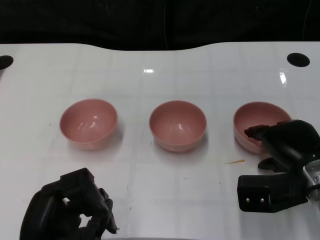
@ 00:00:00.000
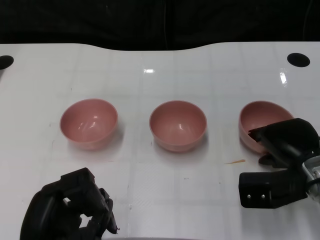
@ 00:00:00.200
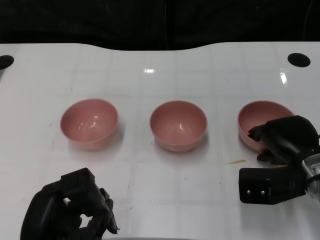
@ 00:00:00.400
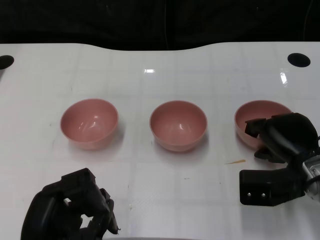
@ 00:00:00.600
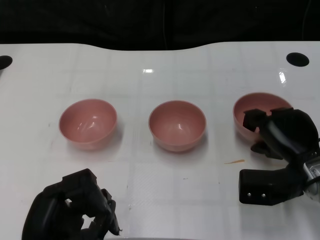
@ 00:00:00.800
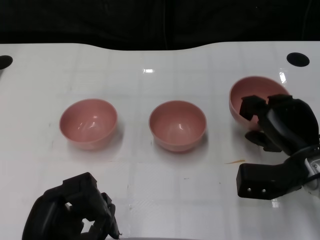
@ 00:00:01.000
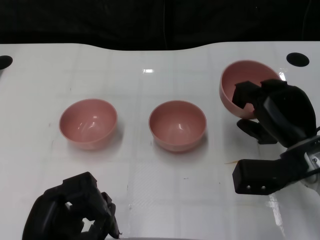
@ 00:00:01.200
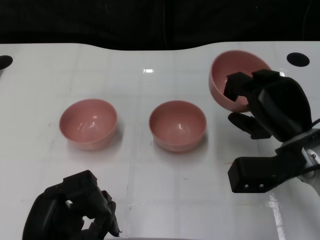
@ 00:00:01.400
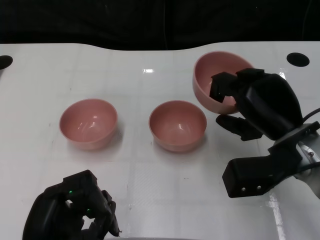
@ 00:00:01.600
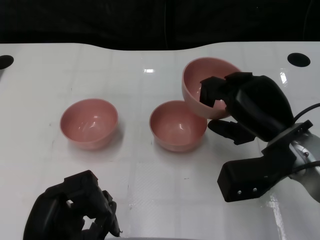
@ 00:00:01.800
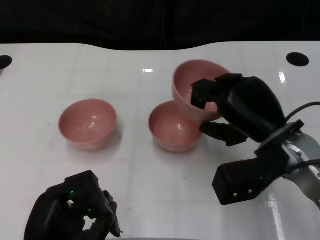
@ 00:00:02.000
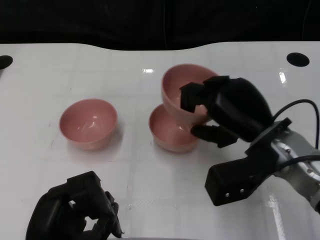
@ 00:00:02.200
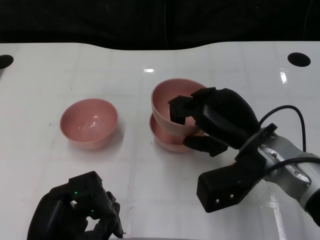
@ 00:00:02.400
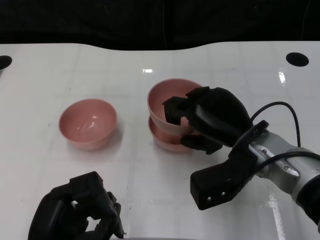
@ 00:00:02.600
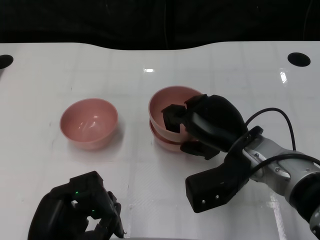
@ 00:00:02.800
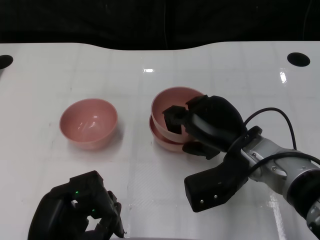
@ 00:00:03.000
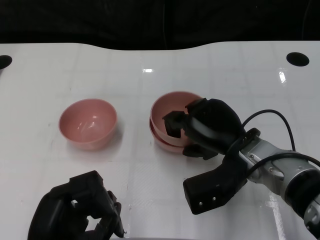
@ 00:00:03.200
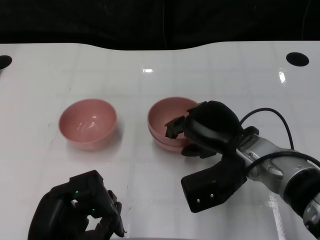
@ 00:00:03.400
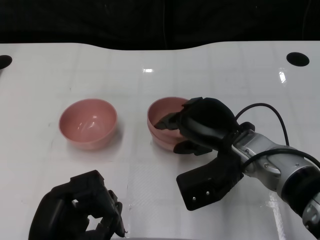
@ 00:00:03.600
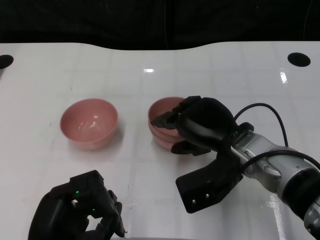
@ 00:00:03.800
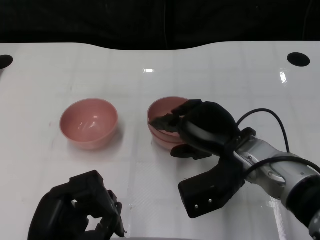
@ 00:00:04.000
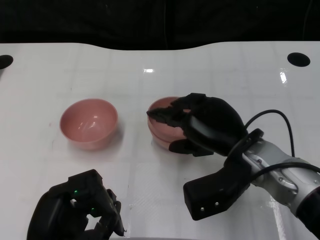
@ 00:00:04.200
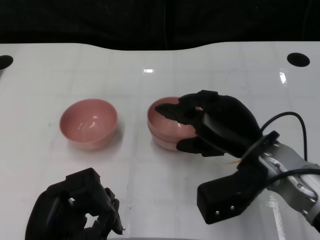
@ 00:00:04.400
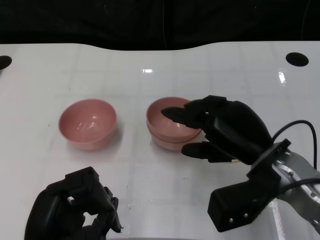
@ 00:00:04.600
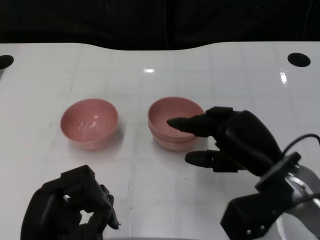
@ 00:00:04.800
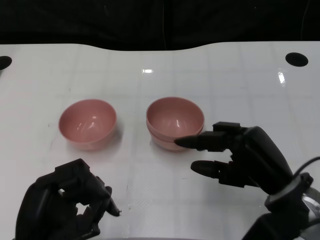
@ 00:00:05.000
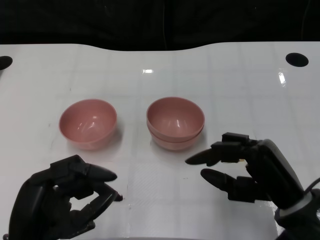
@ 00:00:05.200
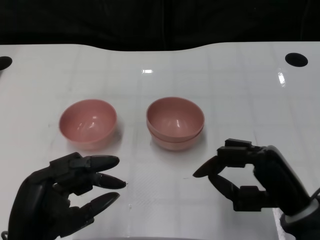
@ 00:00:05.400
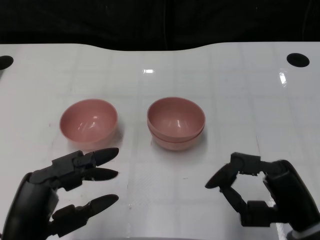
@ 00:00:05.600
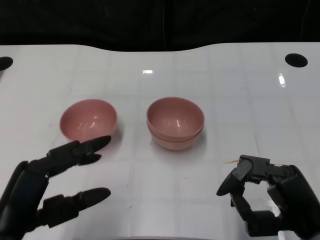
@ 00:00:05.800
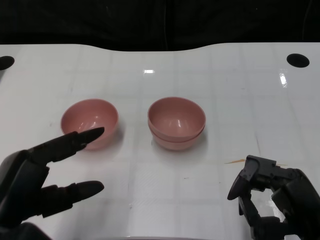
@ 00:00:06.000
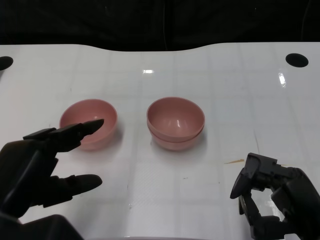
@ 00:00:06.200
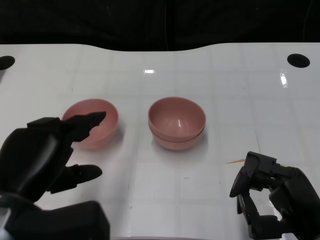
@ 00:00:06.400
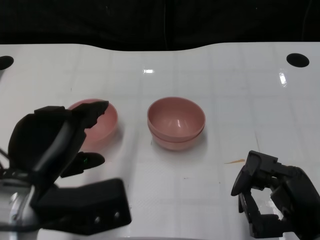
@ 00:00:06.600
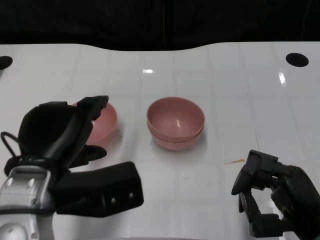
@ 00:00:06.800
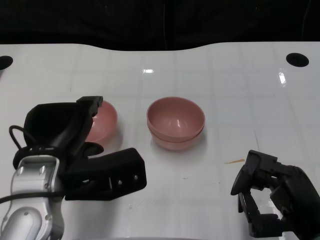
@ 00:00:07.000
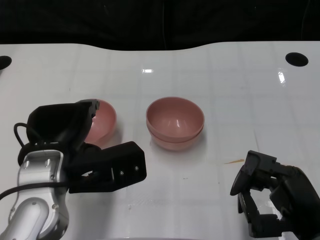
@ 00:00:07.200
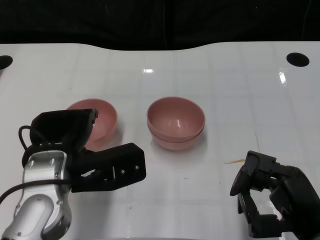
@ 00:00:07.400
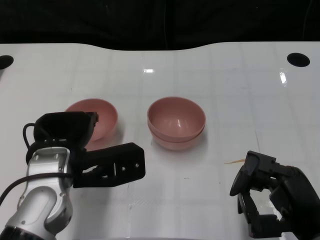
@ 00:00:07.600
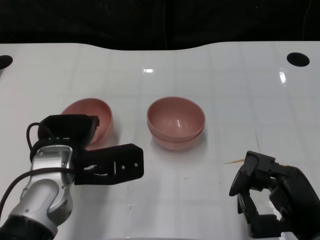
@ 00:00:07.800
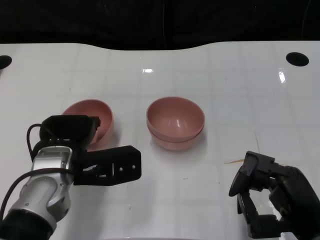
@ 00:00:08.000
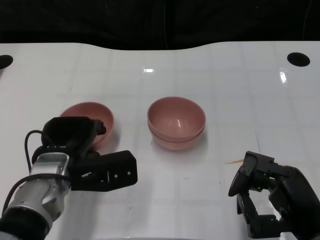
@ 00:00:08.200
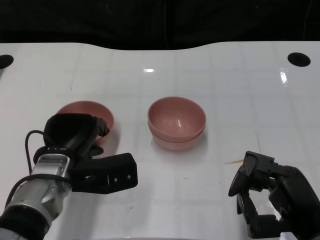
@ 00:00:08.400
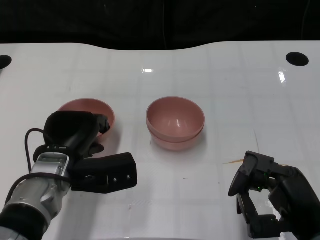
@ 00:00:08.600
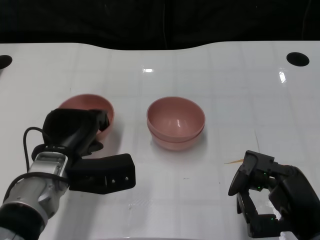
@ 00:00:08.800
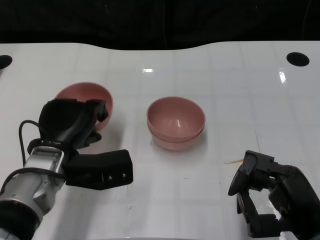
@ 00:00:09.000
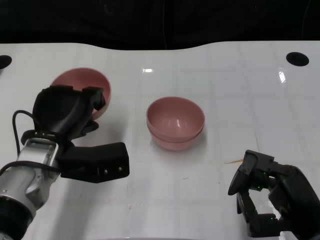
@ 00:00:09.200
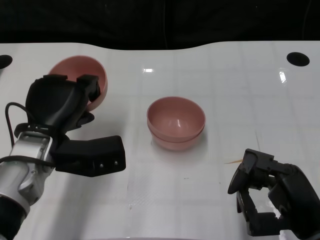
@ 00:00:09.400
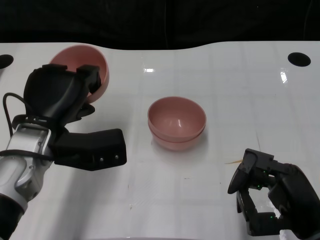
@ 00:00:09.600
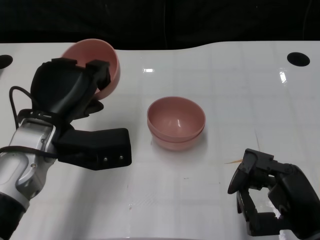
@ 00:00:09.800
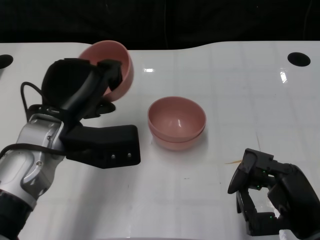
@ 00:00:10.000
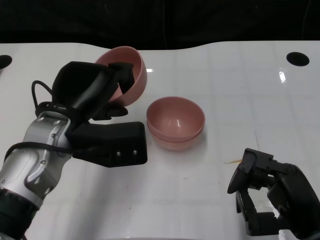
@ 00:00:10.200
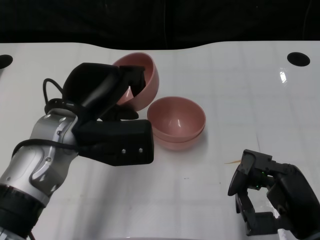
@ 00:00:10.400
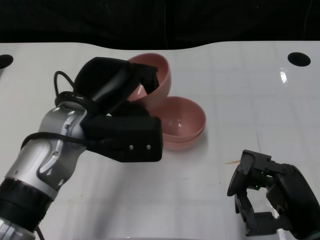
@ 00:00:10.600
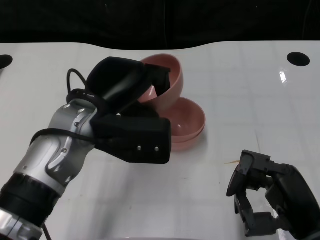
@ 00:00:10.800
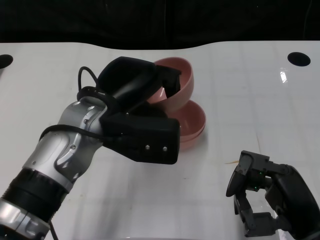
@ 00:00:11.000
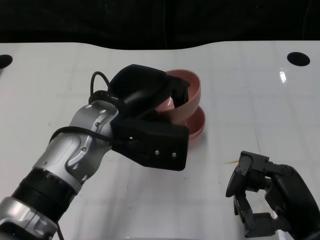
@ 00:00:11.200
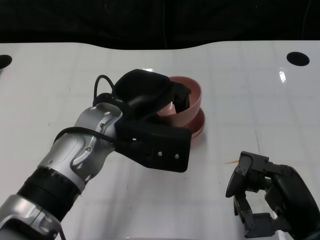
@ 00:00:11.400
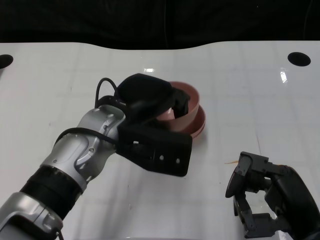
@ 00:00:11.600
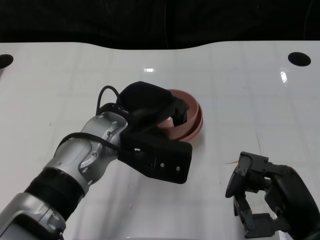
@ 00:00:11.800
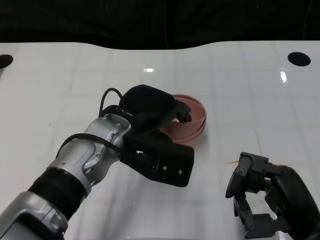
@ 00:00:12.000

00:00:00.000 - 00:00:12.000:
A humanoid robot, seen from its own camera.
Task of the whole recording: Pick up the bowl on one side of the table and place it on top of the middle bowl, then pick up the bowl on the other side of the table and place it on top of the middle bowls.
Step, 00:00:01.000 - 00:00:04.600: Place the bowl on the right onto the bowl in the middle with right gripper.
Step, 00:00:04.800 - 00:00:08.600: Grasp the bowl on the left with the left gripper.
00:00:00.000 - 00:00:01.600: The right hand moves upward, approximately 5 cm.
00:00:01.600 - 00:00:03.000: The right hand travels to the left by approximately 5 cm.
00:00:03.000 - 00:00:04.400: The hands make only small movements.
00:00:04.400 - 00:00:06.000: The right hand goes some 15 cm backward and to the right; the left hand moves upward, some 5 cm.
00:00:06.000 - 00:00:07.600: The left hand moves forward and to the right, approximately 15 cm.
00:00:07.600 - 00:00:09.000: The left hand shifts by roughly 5 cm.
00:00:09.000 - 00:00:10.400: The left hand heads upward, covering some 10 cm.
00:00:10.400 - 00:00:12.000: The left hand moves to the right, roughly 5 cm.

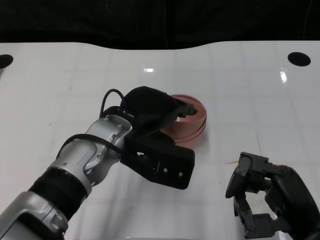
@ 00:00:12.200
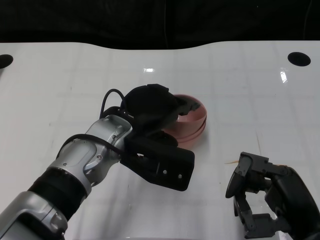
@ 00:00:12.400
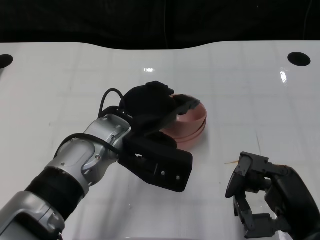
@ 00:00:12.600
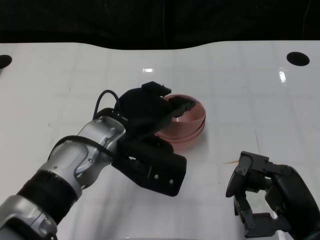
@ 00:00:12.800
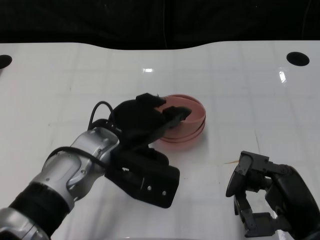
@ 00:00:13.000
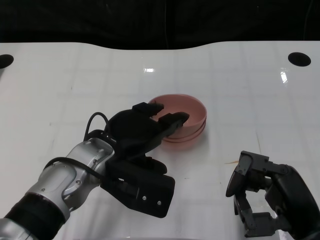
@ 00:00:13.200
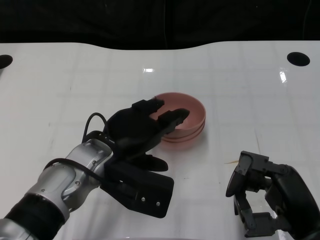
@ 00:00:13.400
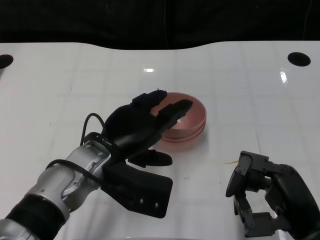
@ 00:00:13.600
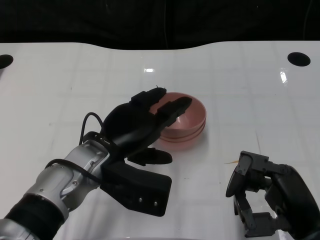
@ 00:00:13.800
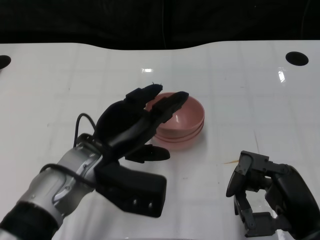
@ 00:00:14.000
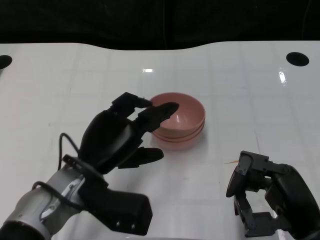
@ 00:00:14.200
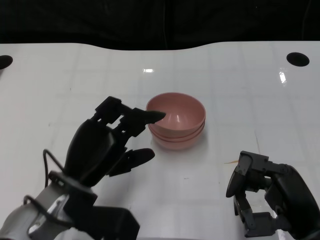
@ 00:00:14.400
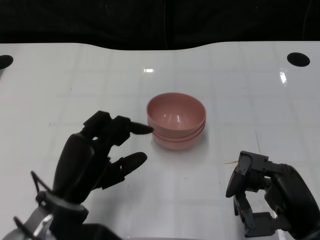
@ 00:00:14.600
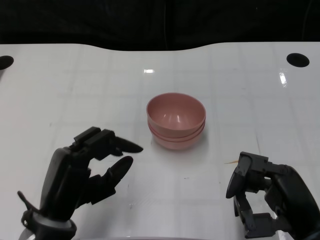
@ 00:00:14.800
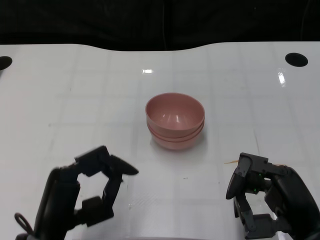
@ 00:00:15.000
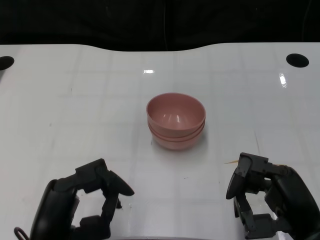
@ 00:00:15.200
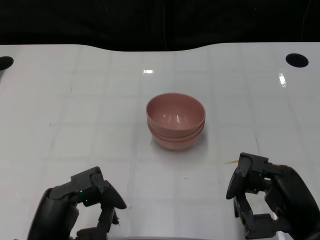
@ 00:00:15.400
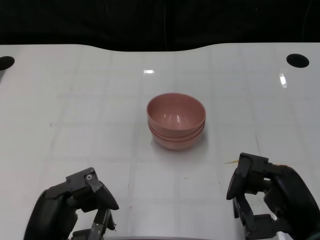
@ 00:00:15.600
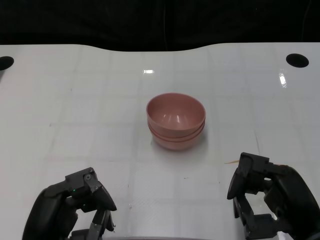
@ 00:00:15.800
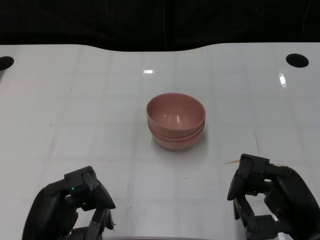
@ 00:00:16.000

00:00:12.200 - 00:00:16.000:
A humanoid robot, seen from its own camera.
Task of the whole recording: Pick up the bowl on one side of the table and place it on top of the middle bowl, then pick up the bowl on the other side of the table and place it on top of the middle bowls.
00:00:12.200 - 00:00:13.400: The hands move only a little.
00:00:13.400 - 00:00:14.800: The left hand heads backward and to the left, covering some 10 cm.
00:00:14.800 - 00:00:16.000: The left hand shifts some 5 cm backward.
